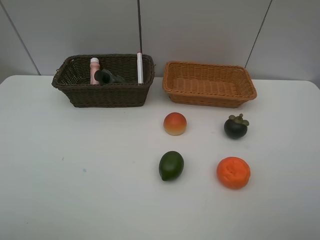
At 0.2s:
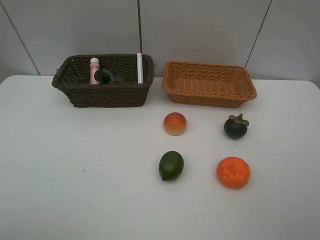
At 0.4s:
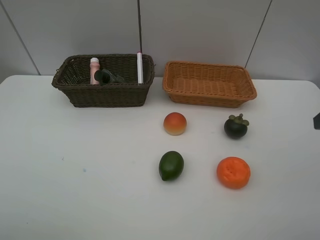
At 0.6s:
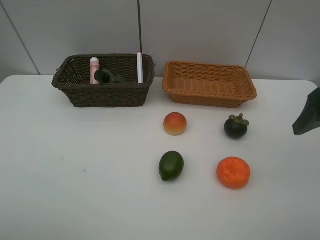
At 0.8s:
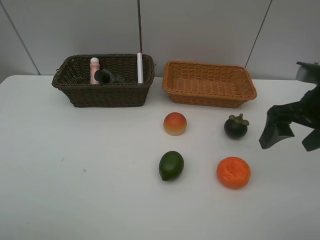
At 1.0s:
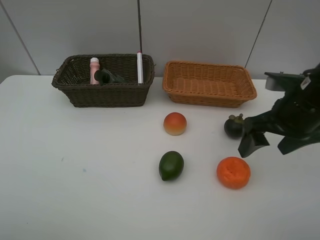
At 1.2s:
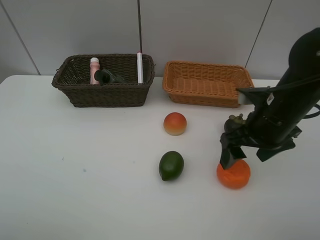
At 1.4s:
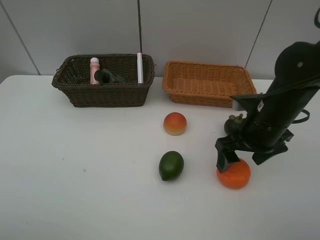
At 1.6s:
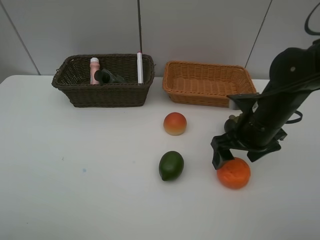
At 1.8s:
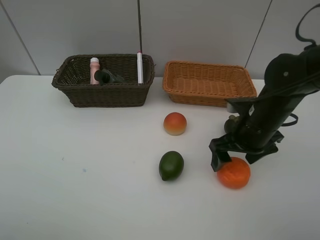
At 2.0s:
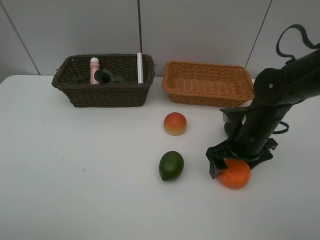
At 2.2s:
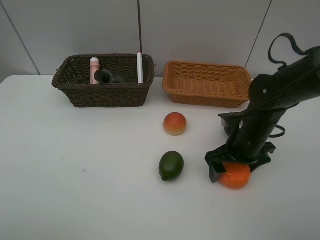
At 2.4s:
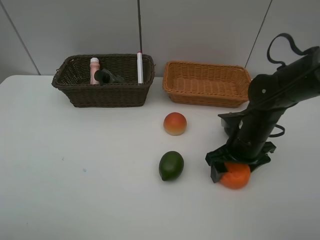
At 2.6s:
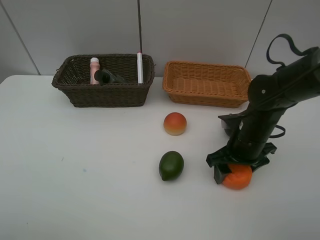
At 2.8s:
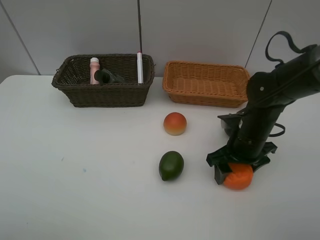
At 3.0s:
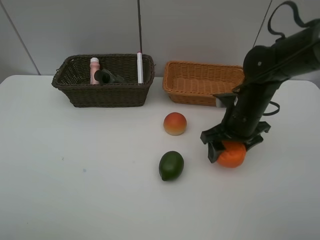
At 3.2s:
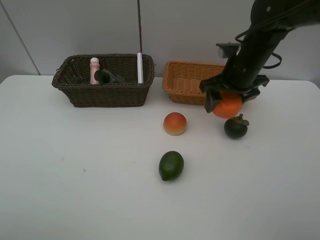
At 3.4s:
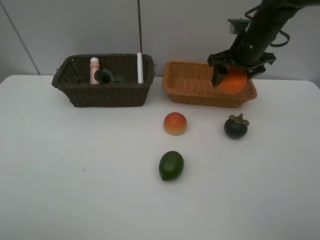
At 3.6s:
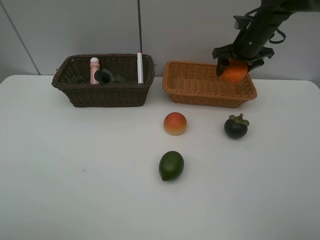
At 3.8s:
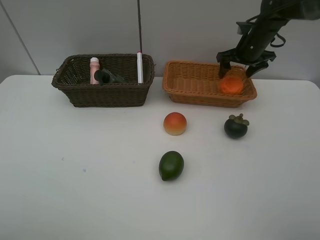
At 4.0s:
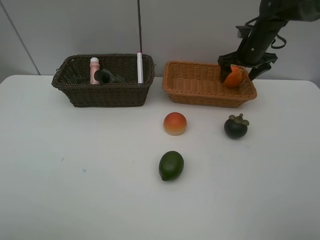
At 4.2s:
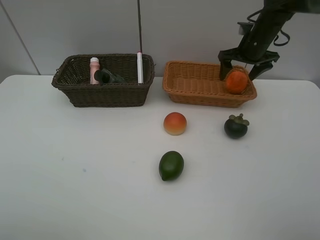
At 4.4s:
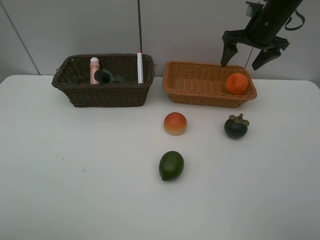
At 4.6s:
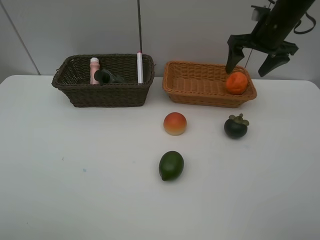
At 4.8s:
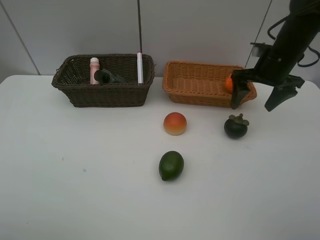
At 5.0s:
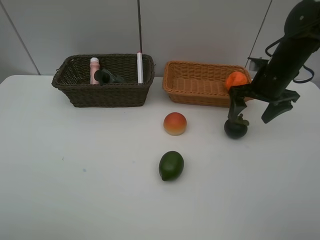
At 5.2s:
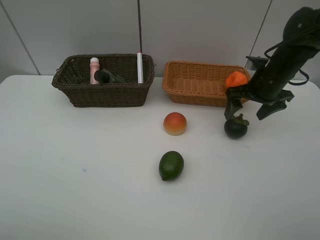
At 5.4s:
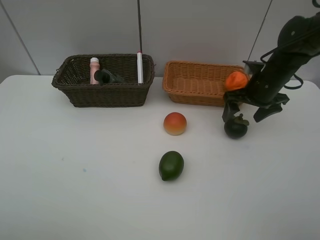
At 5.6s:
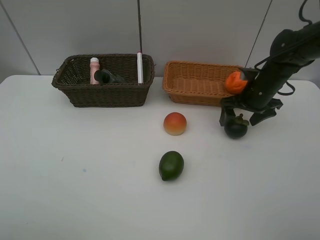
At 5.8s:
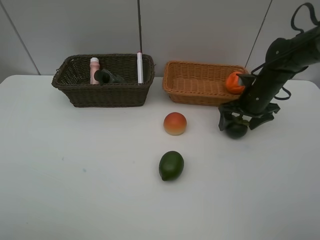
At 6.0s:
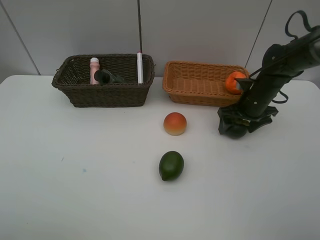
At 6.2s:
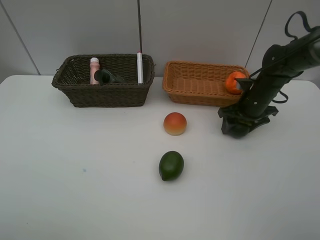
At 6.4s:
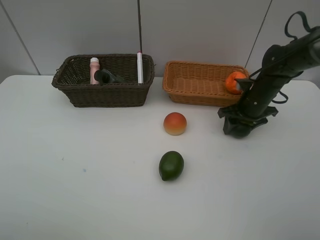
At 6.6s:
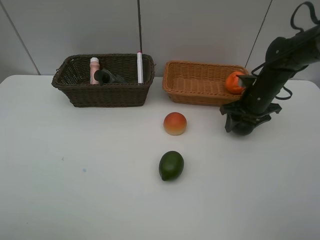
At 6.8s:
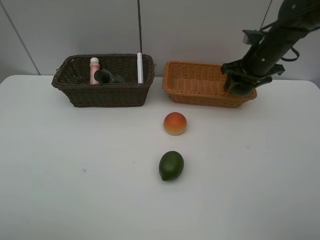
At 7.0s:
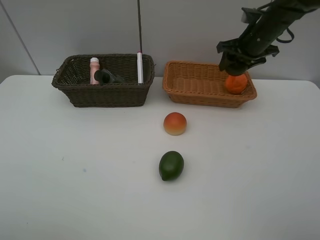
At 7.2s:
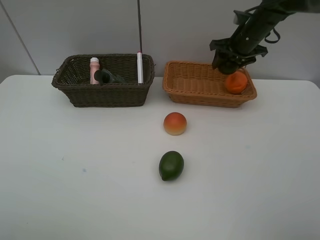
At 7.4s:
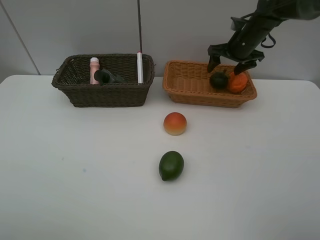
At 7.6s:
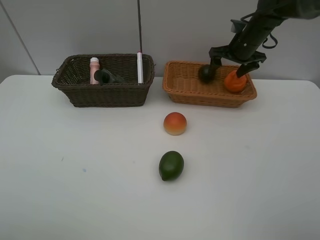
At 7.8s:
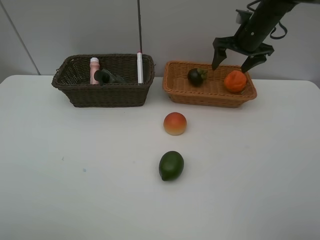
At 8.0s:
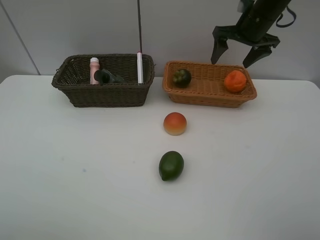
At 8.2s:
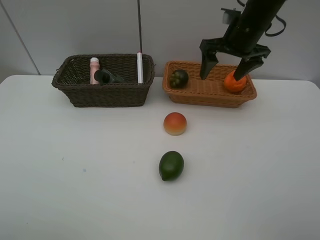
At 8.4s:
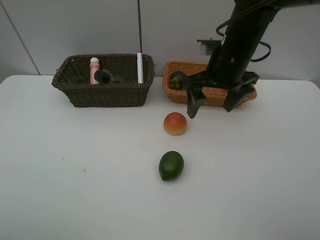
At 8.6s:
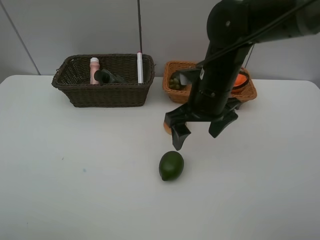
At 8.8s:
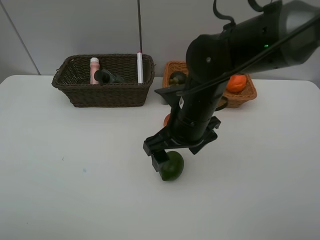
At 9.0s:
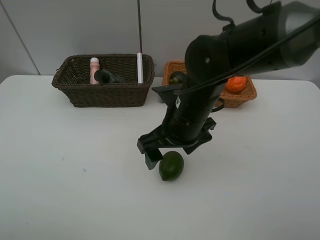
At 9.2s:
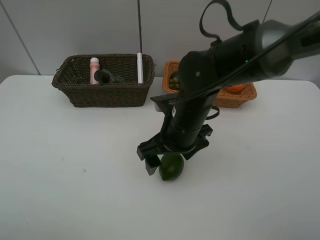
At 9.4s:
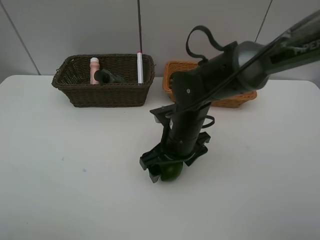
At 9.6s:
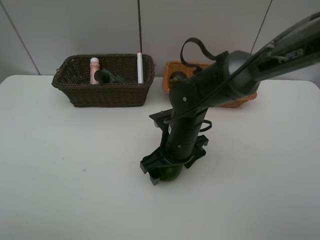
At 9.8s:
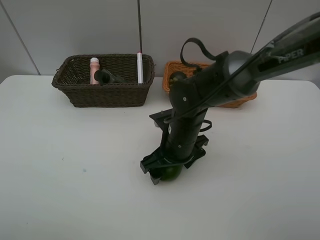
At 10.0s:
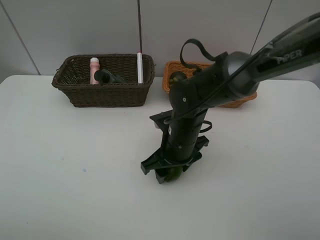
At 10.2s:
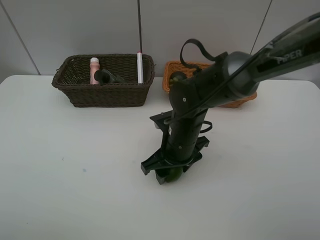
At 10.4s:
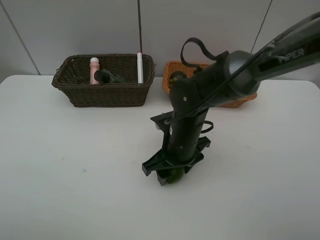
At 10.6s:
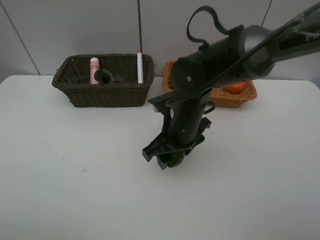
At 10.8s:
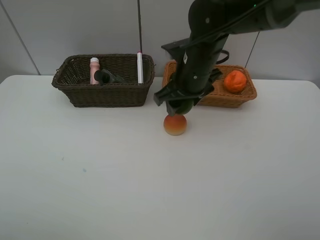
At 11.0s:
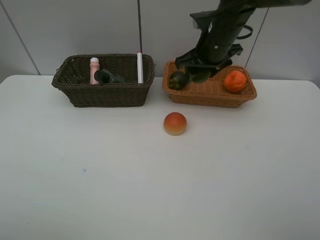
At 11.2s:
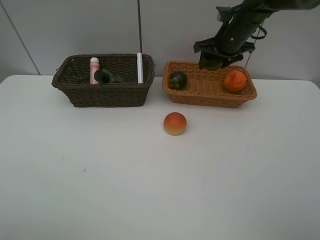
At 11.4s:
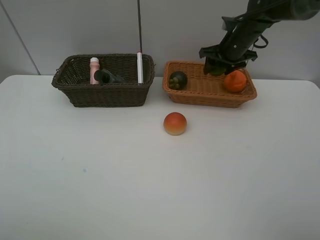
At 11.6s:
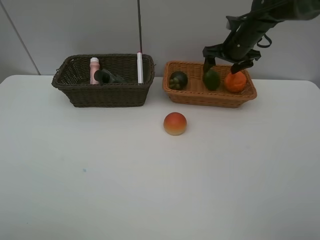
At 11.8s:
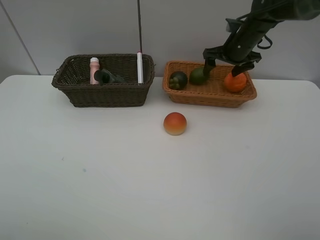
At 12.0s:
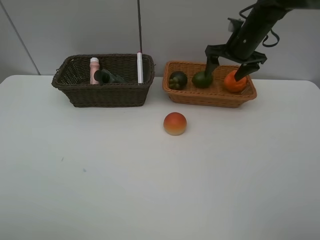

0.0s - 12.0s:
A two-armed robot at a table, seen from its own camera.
Task of the whole recording: Place multiple objects separately in different baskets.
Step, 0.0s - 3.0s: Pick up the orange with right gripper.
Step, 3.2s - 4.0s: Place the orange in the light basket with right gripper.
Step, 4.2s - 6.6s: Pick up the mangosteen with right gripper.
Step, 6.8s - 7.4s: Place the mangosteen in the light basket with right gripper.
Step, 7.6s - 10.6s: Pick up the lime with right gripper.
Step, 10.8s - 11.8s: Place the lime in the light basket with right gripper.
0.0s - 1.6s: The right gripper moves forward, downward and to the left, approximately 25 cm.
1.6s - 3.0s: The right gripper shifts by roughly 5 cm, and closes its fingers.
3.0s - 4.4s: The right gripper moves forward, upward and to the right, approximately 20 cm, and opens up.
4.4s - 6.0s: The right gripper travels downward and backward by about 15 cm.
6.0s - 7.6s: The right gripper shifts roughly 15 cm forward and upward, and closes, then opens again.
7.6s - 9.0s: The right gripper travels backward and to the left by roughly 30 cm.
9.0s - 10.4s: The right gripper heads downward, covering approximately 5 cm, and closes its fingers.
10.4s - 12.0s: The right gripper heads forward, to the right and upward, covering approximately 30 cm, and opens.

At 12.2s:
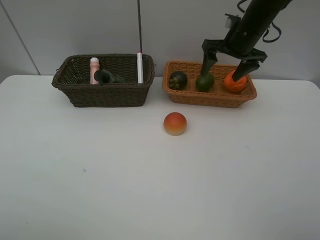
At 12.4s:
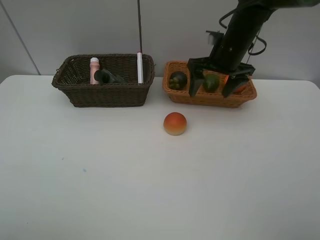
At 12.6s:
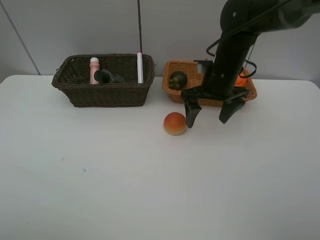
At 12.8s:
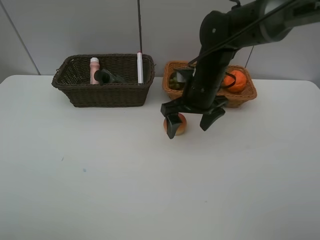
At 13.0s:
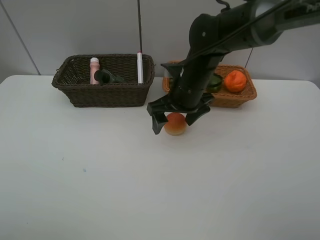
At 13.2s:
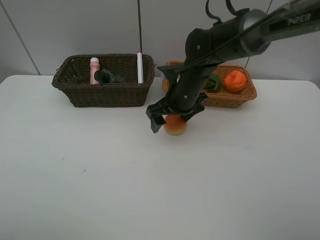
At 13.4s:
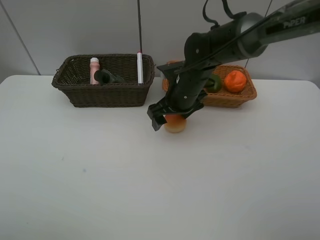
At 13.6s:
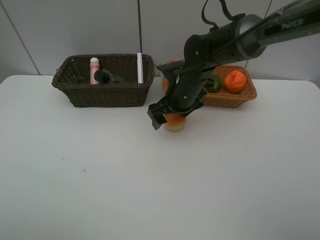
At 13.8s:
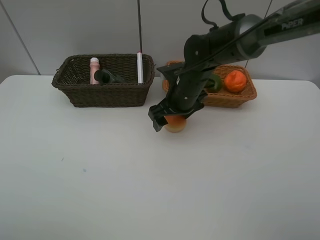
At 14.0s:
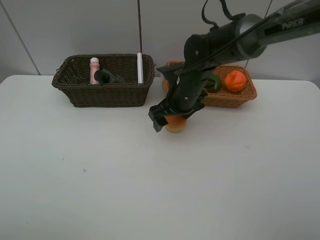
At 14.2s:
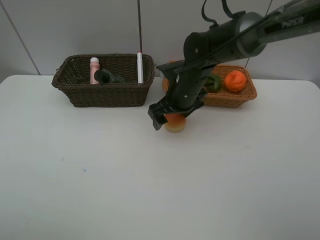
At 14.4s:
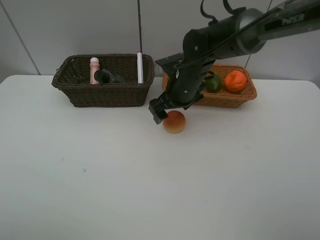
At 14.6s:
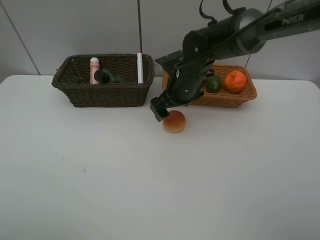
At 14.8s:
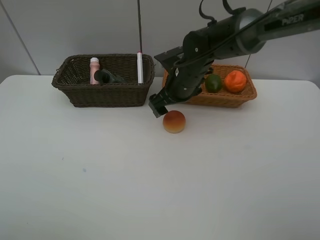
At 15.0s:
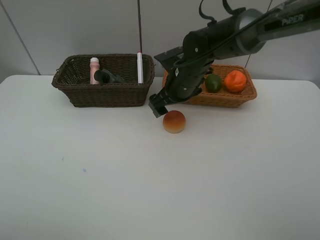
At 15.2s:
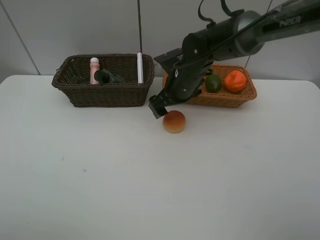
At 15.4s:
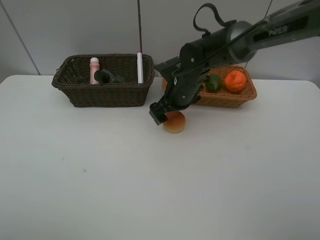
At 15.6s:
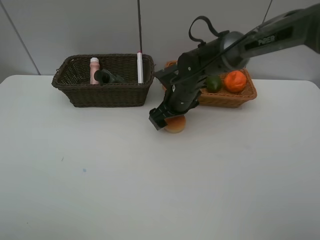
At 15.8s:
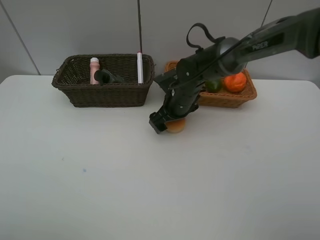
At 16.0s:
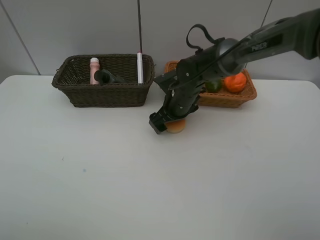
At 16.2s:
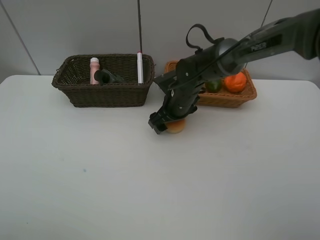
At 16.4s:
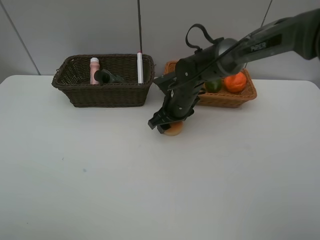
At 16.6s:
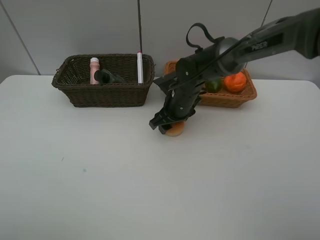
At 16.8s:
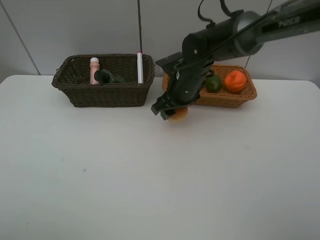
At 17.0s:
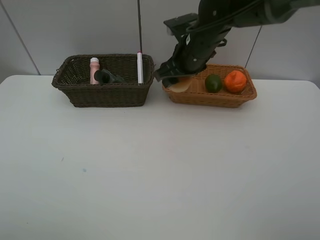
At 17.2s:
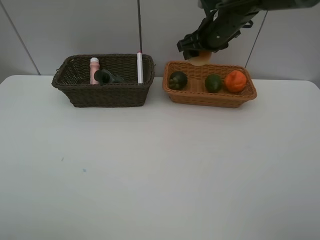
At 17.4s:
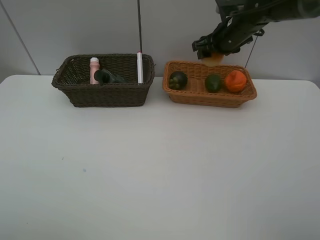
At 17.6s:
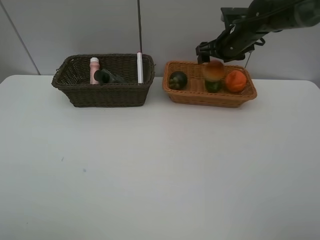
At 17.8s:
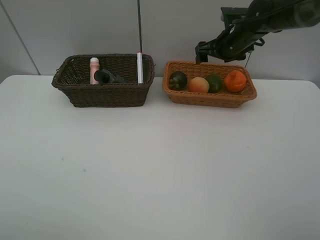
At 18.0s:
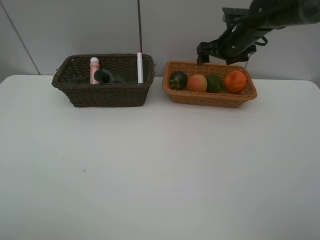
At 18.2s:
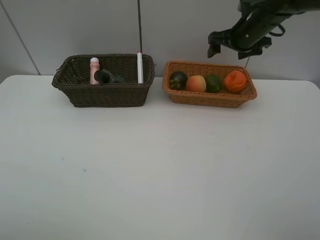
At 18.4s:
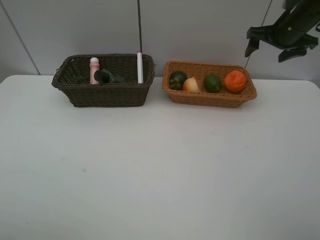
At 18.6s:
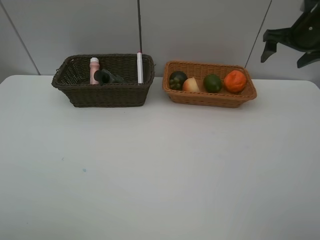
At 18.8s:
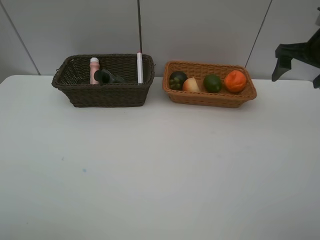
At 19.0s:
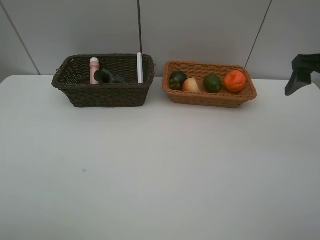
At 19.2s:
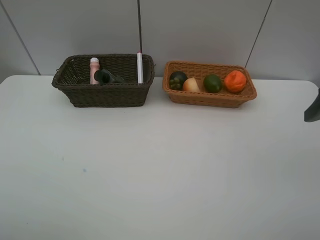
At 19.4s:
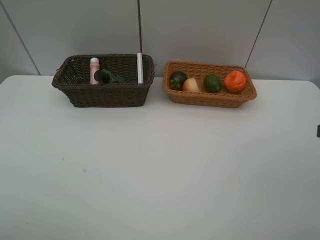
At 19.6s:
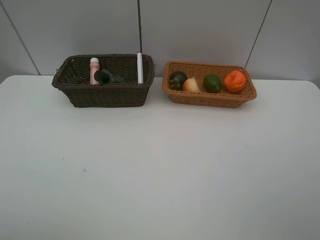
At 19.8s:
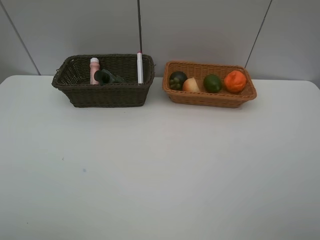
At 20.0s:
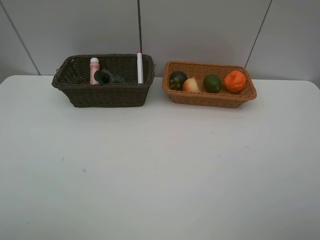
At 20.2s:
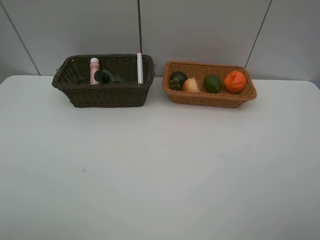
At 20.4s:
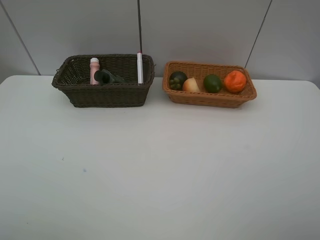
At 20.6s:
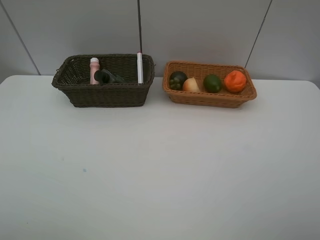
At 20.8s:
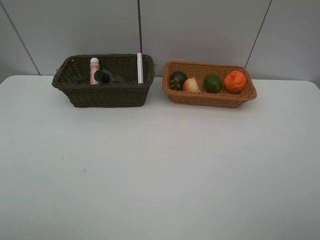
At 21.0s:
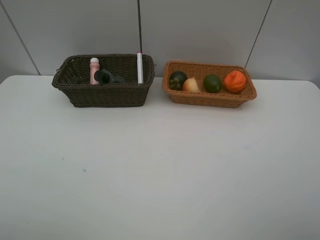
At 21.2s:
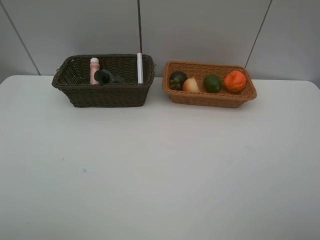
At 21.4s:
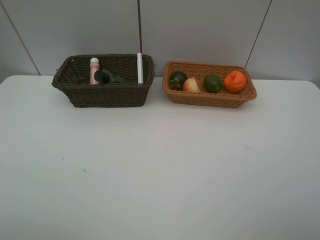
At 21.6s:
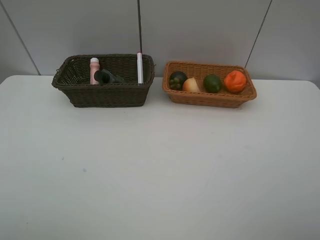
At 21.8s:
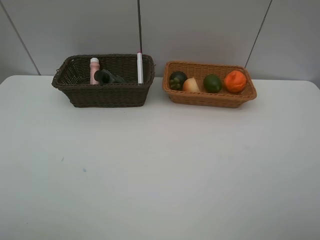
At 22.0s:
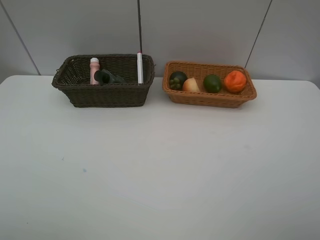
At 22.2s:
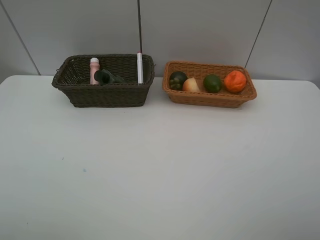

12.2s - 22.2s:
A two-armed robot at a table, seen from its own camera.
Task of the whole recording: Place multiple objects separately in different baskets.
Step, 12.2s - 16.8s: Pick up egg yolk pastry with right gripper.
Step, 17.0s - 18.0s: Place the egg yolk pastry in the light basket with right gripper.
12.2s - 13.6s: The right gripper is displaced to the left, downward and backward by some 20 cm.
13.6s - 15.0s: The grippers make only small movements.
15.0s - 16.4s: The right gripper heads downward, covering approximately 5 cm, and closes.
16.4s - 18.0s: The right gripper heads to the right, upward and forward, covering about 20 cm, and opens up.
18.0s - 19.4s: The right gripper is displaced backward by approximately 35 cm.
20.8s - 22.2s: Both grippers stay put.
